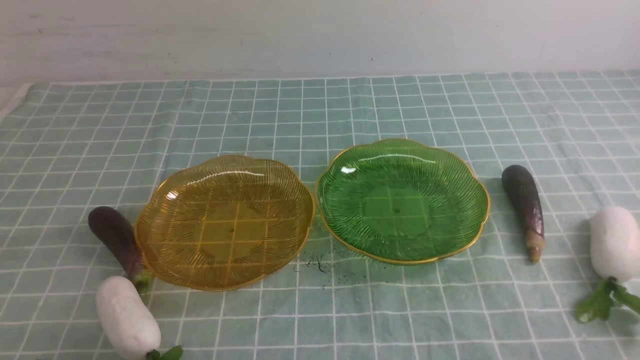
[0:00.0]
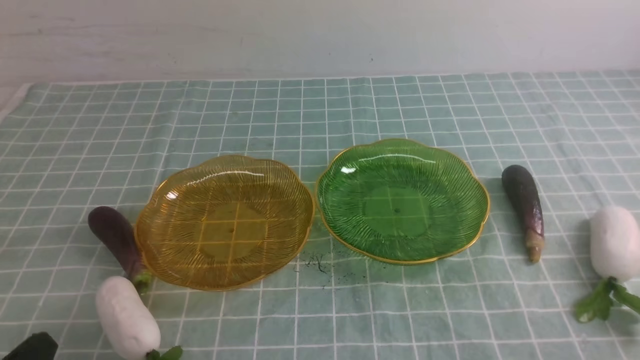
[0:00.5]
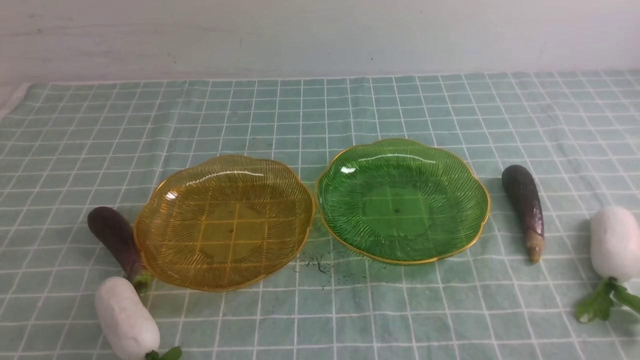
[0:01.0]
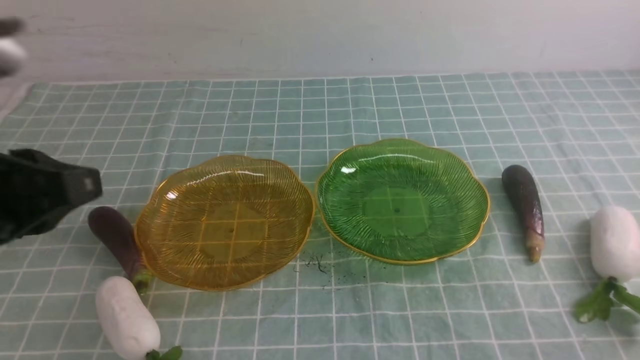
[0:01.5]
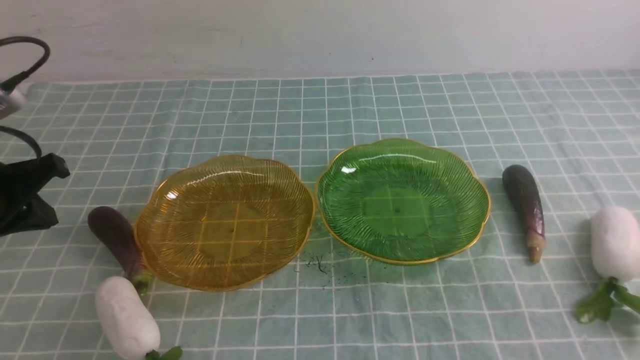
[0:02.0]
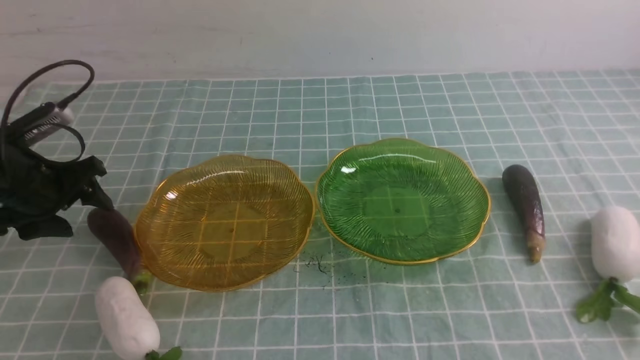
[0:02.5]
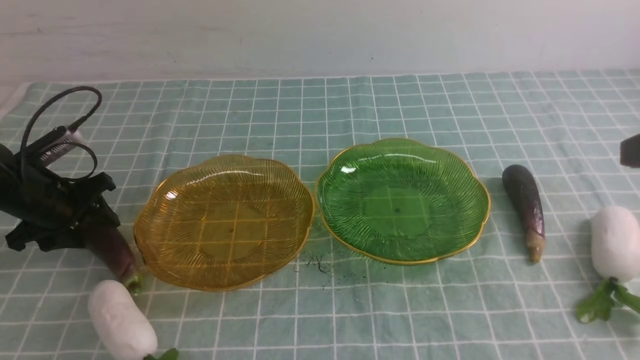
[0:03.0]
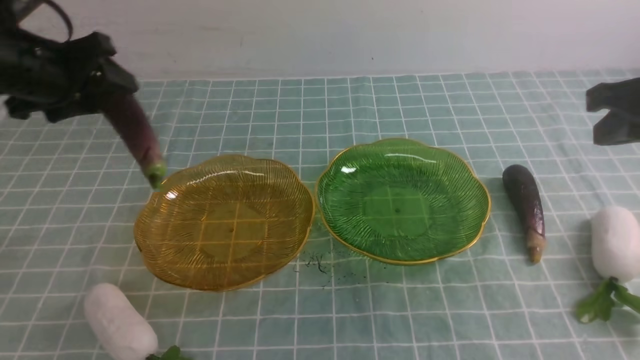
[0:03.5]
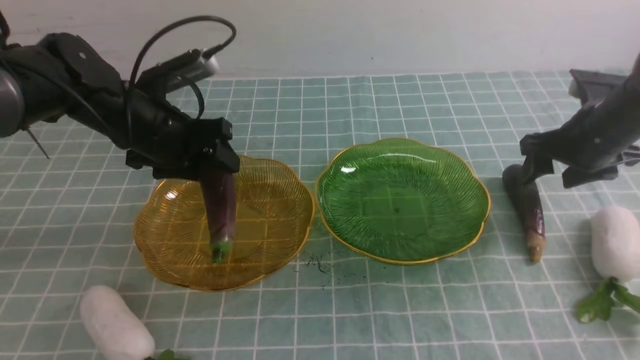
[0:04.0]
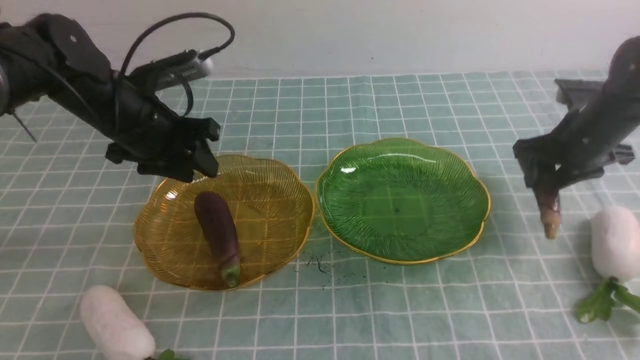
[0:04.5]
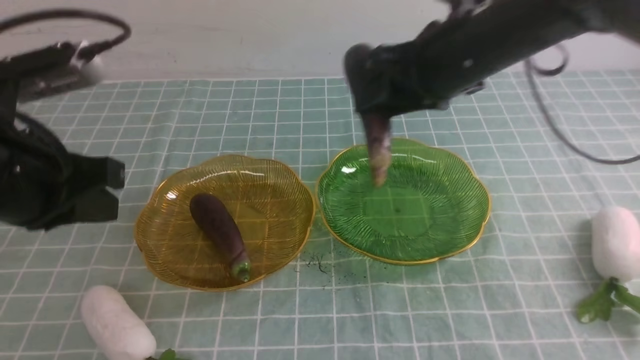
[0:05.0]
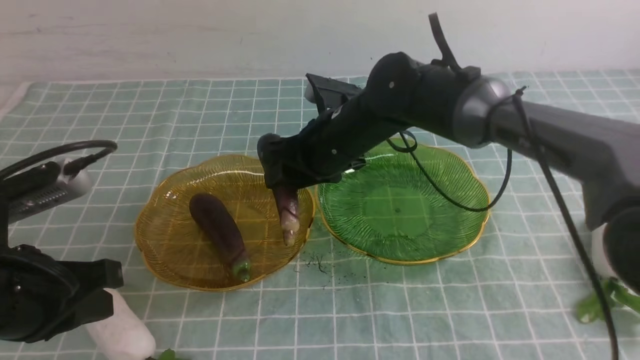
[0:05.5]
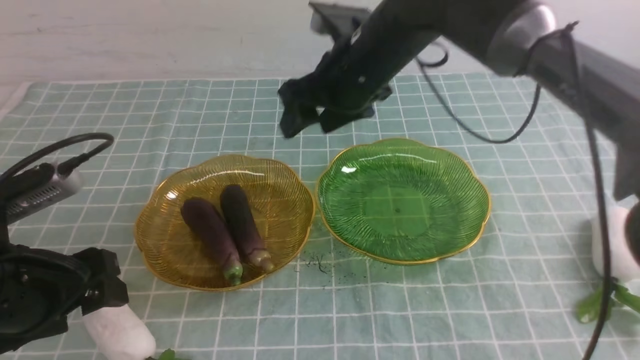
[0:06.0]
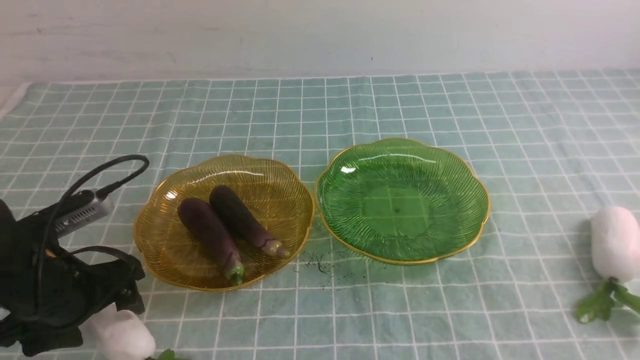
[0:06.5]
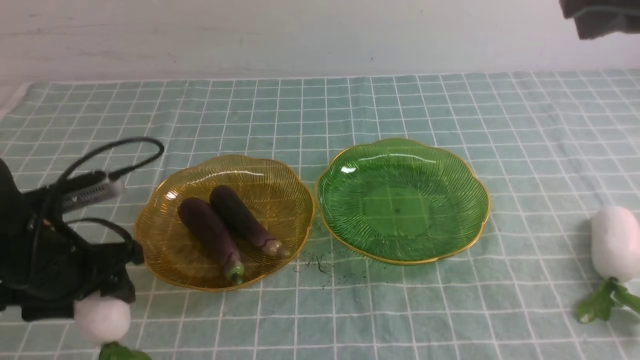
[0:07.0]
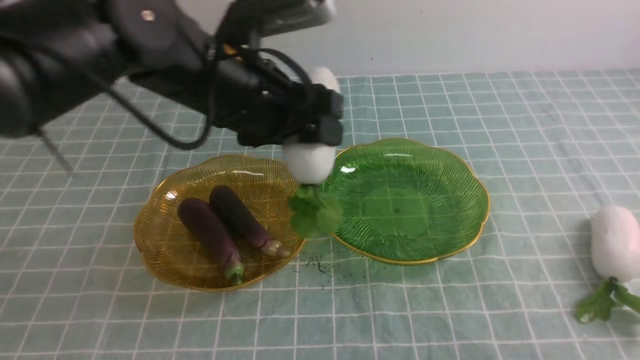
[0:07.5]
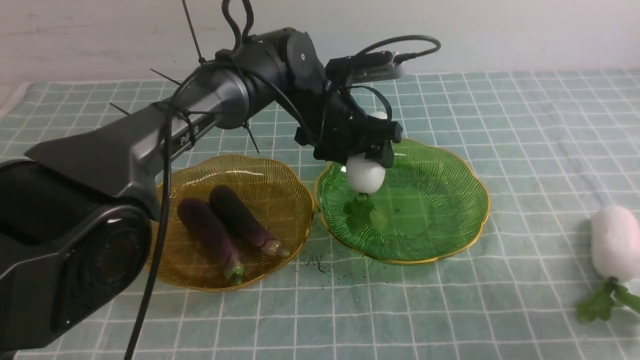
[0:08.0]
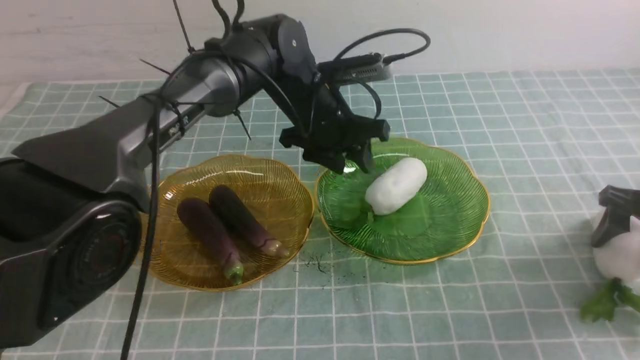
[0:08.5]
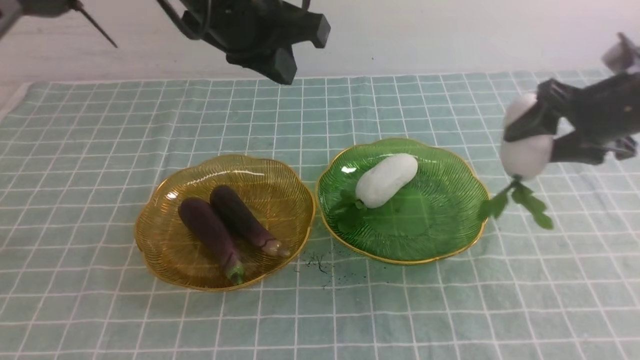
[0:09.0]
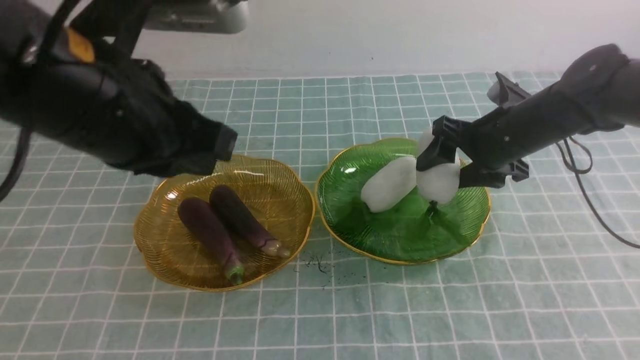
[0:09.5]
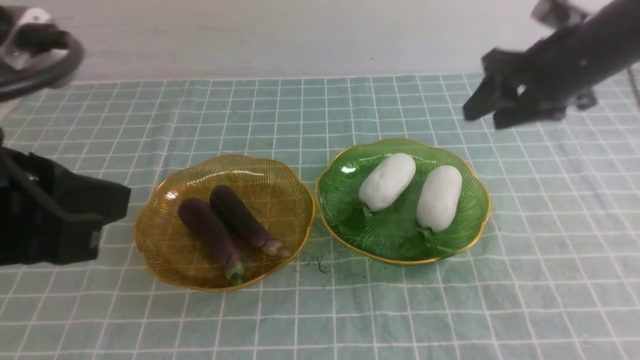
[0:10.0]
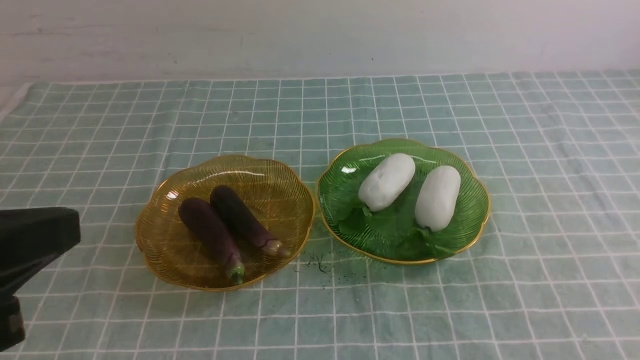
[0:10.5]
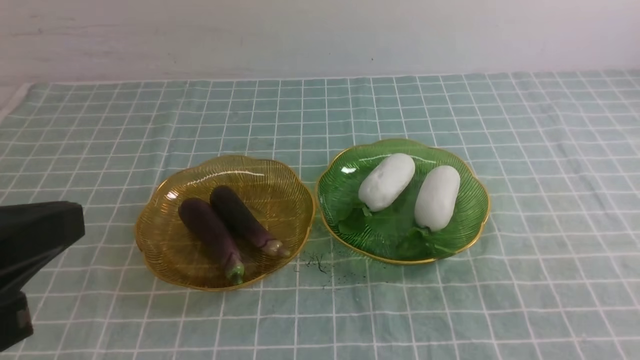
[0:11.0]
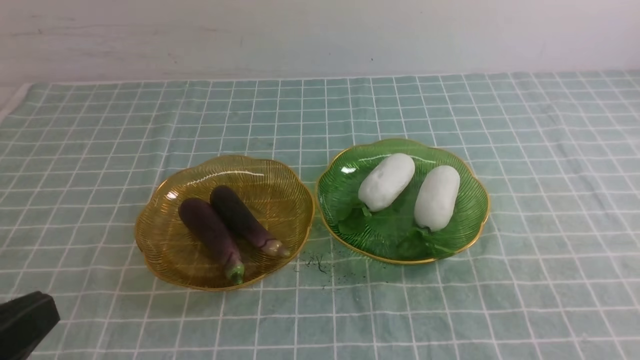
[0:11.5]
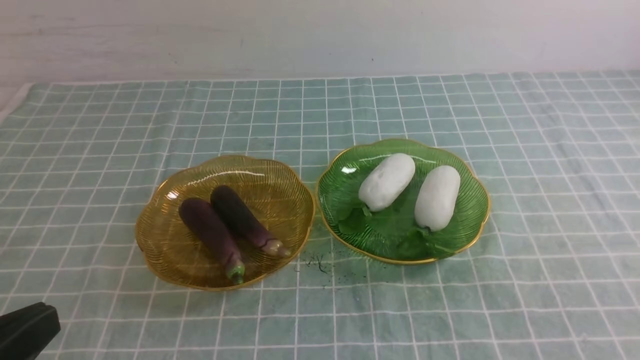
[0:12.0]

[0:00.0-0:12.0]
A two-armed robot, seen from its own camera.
Step, 0:00.0 to 0:04.0: use the left arm to grab an eggplant and put it into the left plate.
Step, 0:04.5 to 0:05.5: use the right arm to grab an eggplant and put it into the left plate.
Step, 0:06.0 to 0:08.0: use the left arm to grab a radish and put it into the right plate.
Step, 0:08.5 to 0:09.5: use the right arm to grab a radish and put it into the right plate.
0:00.0 to 0:02.0: The left gripper is displaced forward and upward by about 25 cm.
0:02.0 to 0:04.0: The left gripper moves forward and to the right, some 15 cm, and opens its fingers. Meanwhile the right gripper shifts some 35 cm forward, and opens up.
0:04.0 to 0:06.0: The left gripper goes roughly 20 cm backward, and closes, then reopens; the right gripper heads to the left and upward, covering about 30 cm.
0:06.0 to 0:08.0: The left gripper shifts about 35 cm forward and to the right. The right gripper travels to the right and downward by roughly 35 cm, and opens up.
0:08.0 to 0:10.0: The left gripper goes about 40 cm backward, to the left and upward, and closes. Meanwhile the right gripper moves upward and to the left, approximately 25 cm, and closes its fingers.
0:10.0 to 0:12.0: The left gripper shifts some 15 cm downward and backward. The right gripper shifts approximately 35 cm backward, and closes up.
